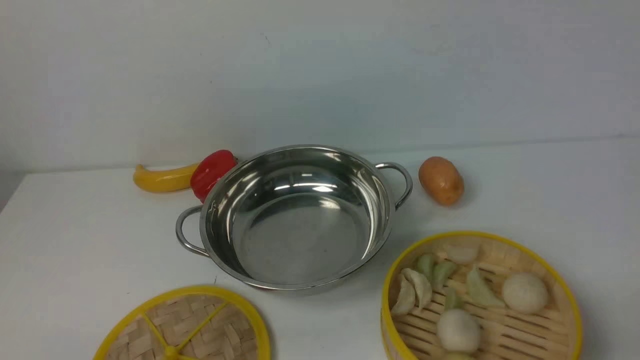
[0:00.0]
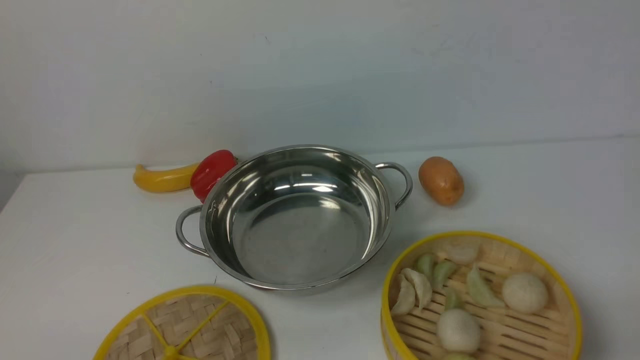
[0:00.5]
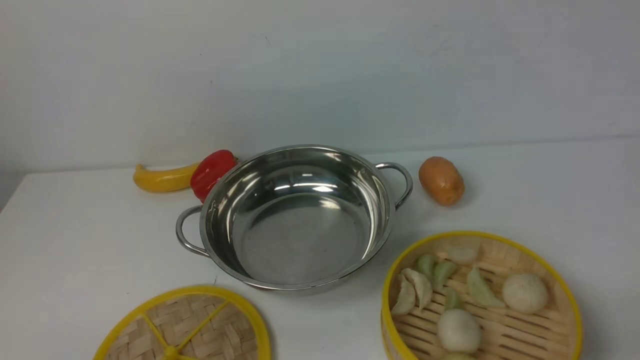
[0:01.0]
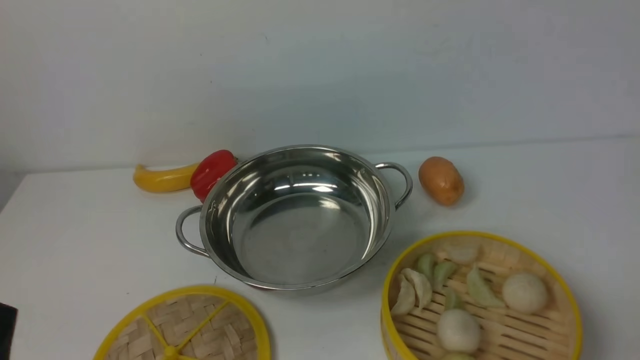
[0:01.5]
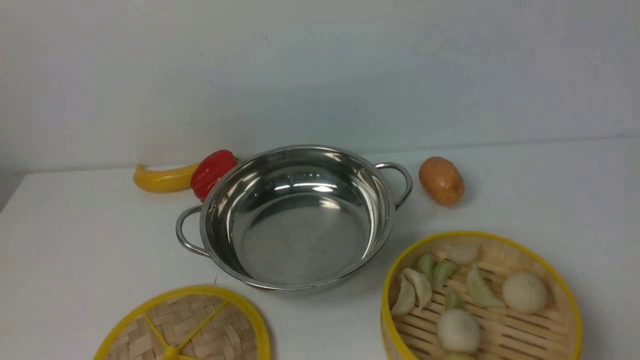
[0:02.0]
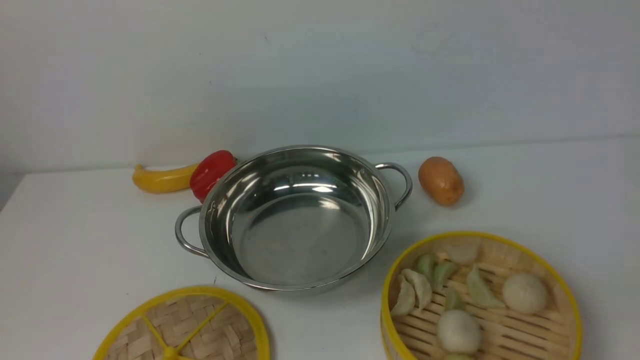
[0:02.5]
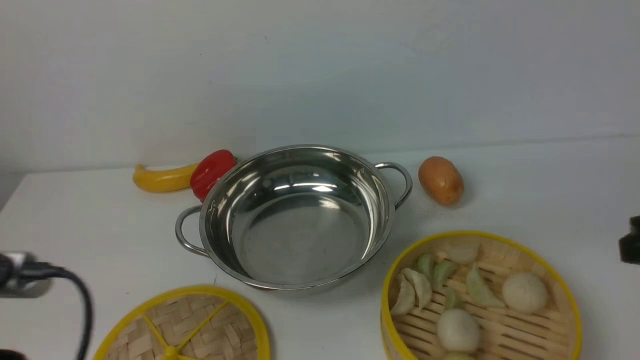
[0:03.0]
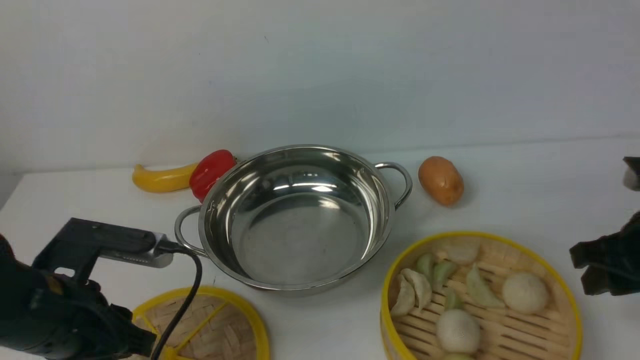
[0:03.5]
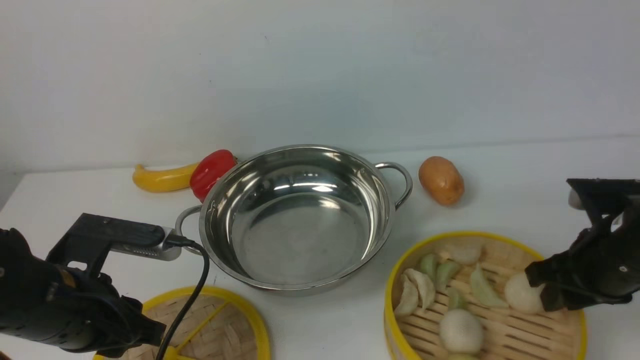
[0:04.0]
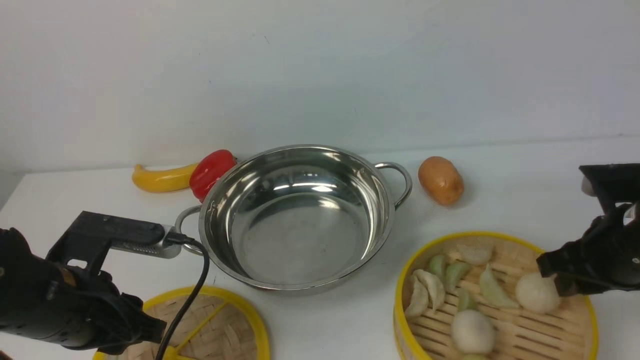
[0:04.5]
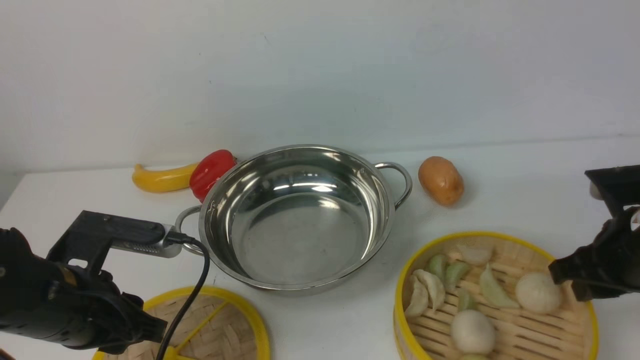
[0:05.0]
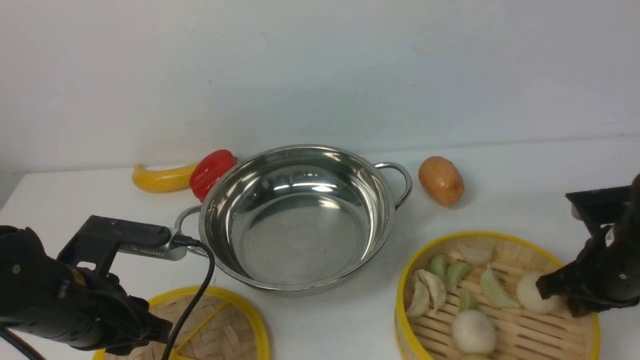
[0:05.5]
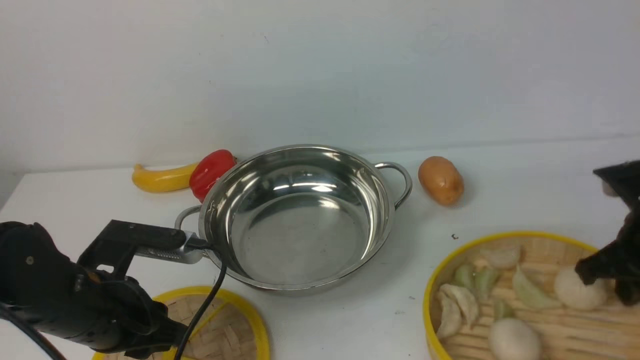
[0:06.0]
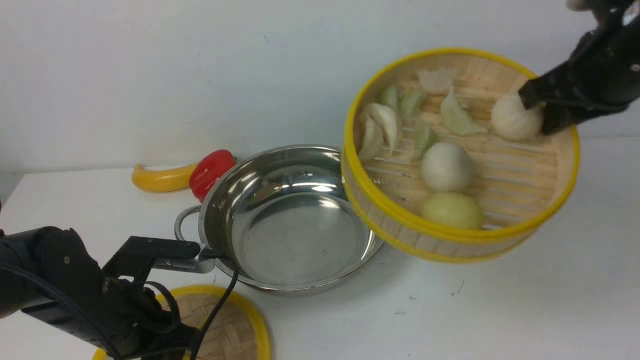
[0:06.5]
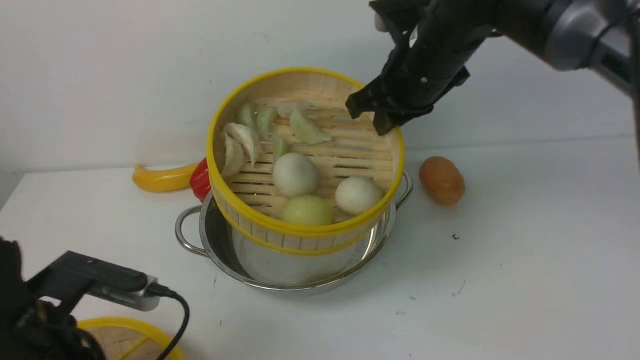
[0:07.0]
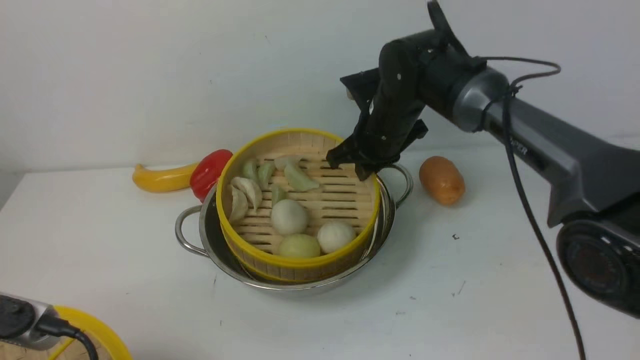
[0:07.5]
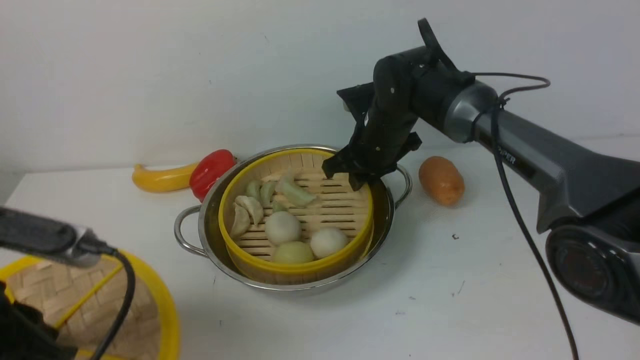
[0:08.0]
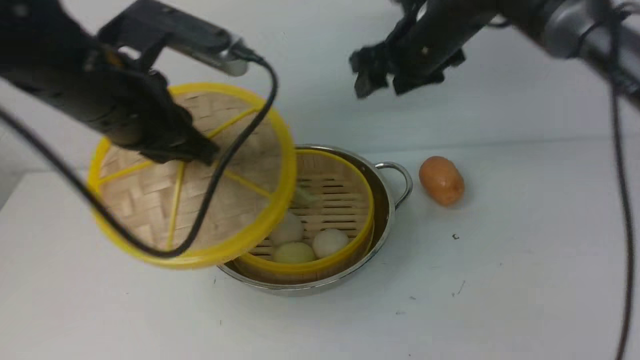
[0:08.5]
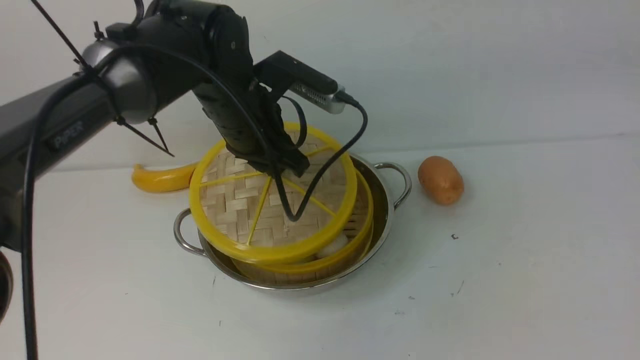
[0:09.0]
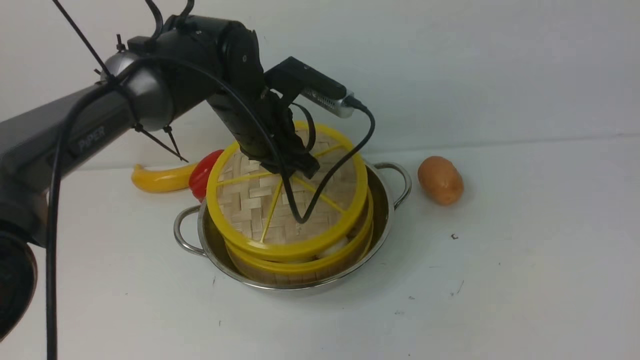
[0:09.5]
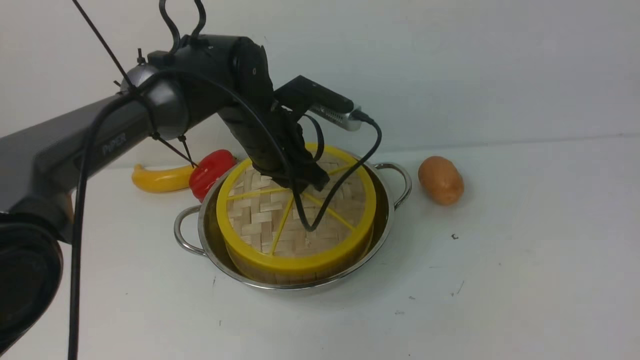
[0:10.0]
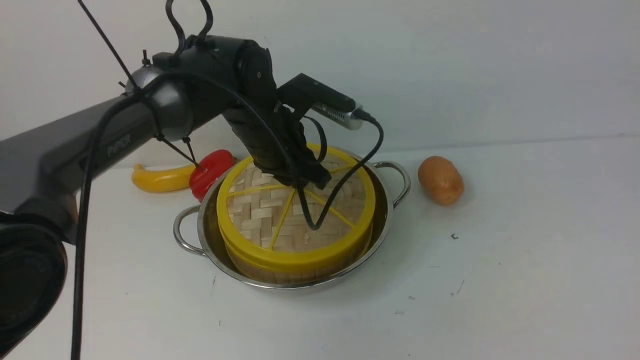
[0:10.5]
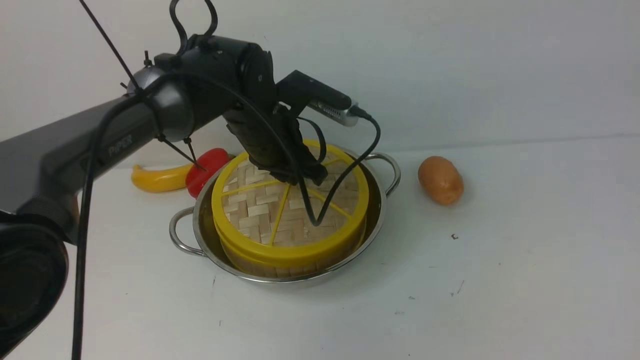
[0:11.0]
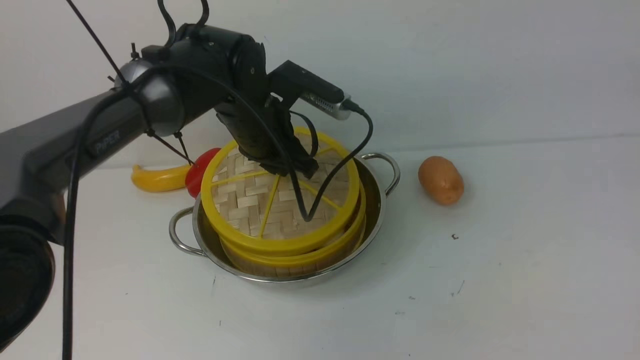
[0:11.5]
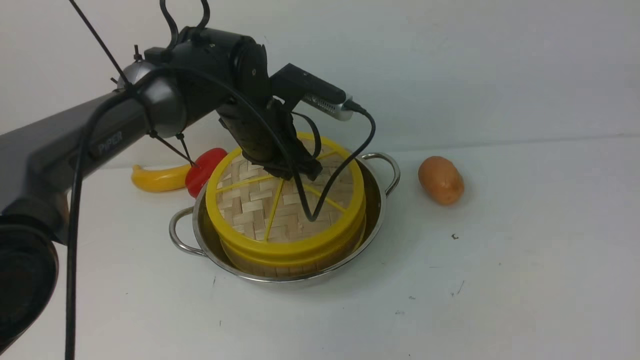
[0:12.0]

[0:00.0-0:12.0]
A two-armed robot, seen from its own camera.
Task of the whole recording: place the steamer in the pot on the white table, and put the lid on the steamer.
Step, 0:00.0 to 0:06.0: use the right arm to lift the steamer closest to it.
Step, 0:06.5 to 0:08.0: use the right arm to put the steamer into the iron steamer pot in the middle.
0:02.0 to 0:04.0: The two grippers go roughly 20 cm forward.
0:04.0 to 0:06.0: The right gripper closes up.
0:06.0 to 0:08.0: The left gripper heads upward and backward, covering about 15 cm, and closes up. The right gripper travels to the left and forward by approximately 30 cm.
0:08.0 to 0:10.0: The left gripper shifts approximately 30 cm forward and to the right. Meanwhile the right gripper is displaced upward, backward and to the right by roughly 50 cm, and opens.
0:10.0 to 0:12.0: The grippers make only small movements.

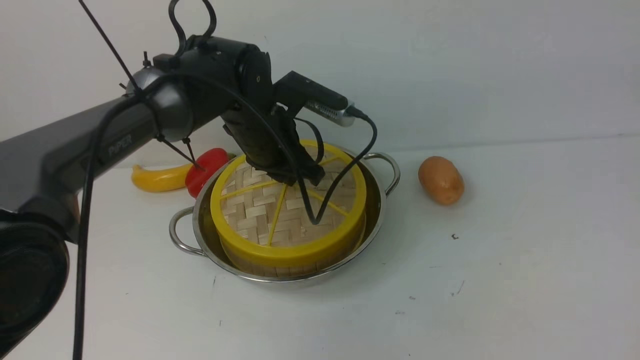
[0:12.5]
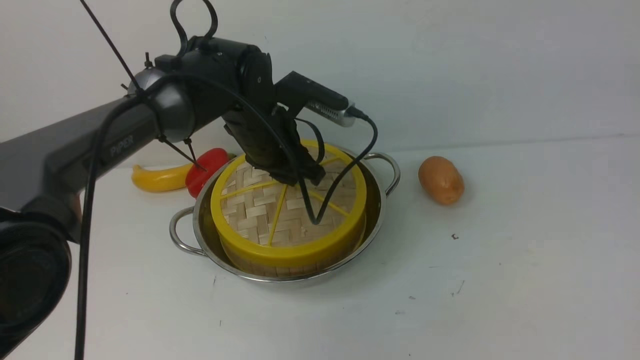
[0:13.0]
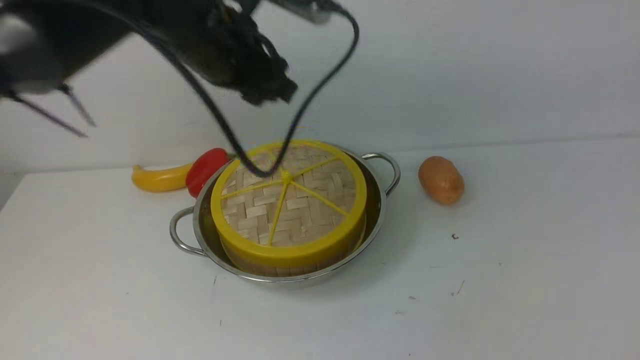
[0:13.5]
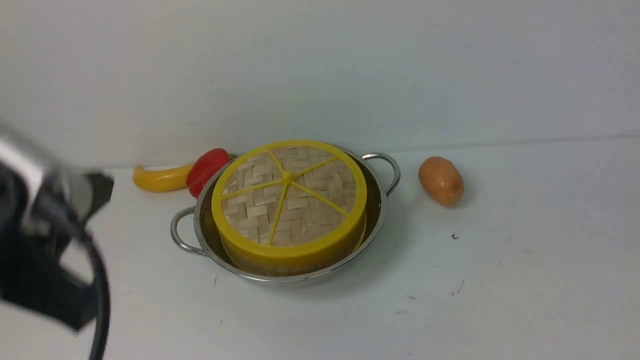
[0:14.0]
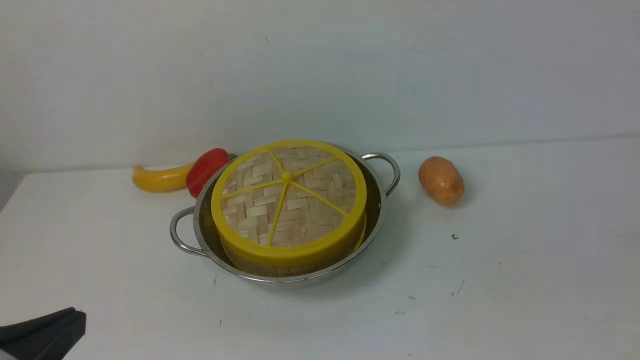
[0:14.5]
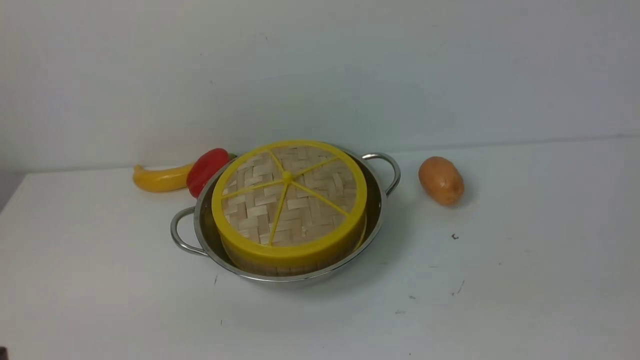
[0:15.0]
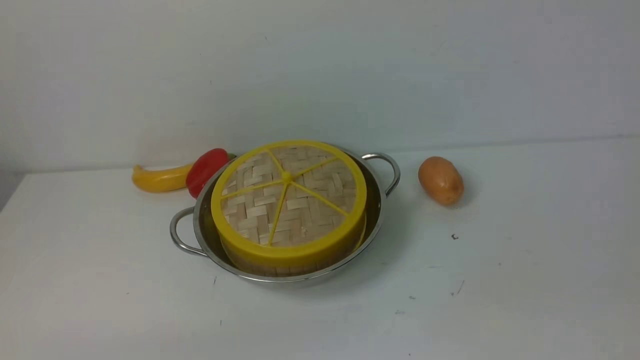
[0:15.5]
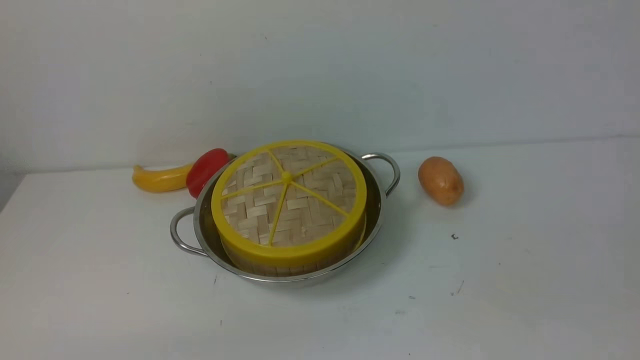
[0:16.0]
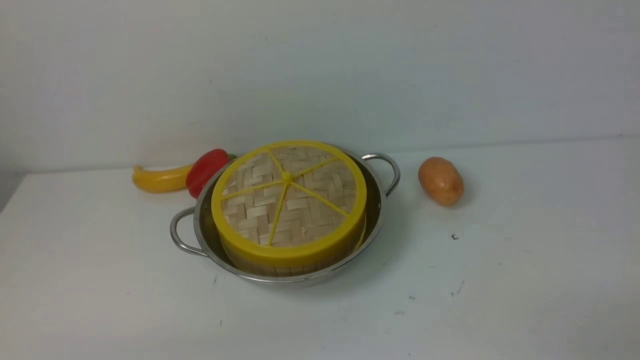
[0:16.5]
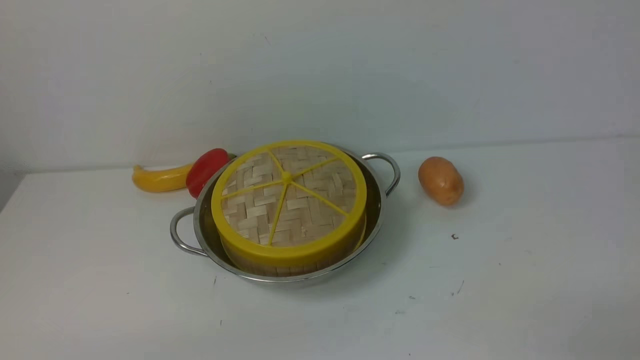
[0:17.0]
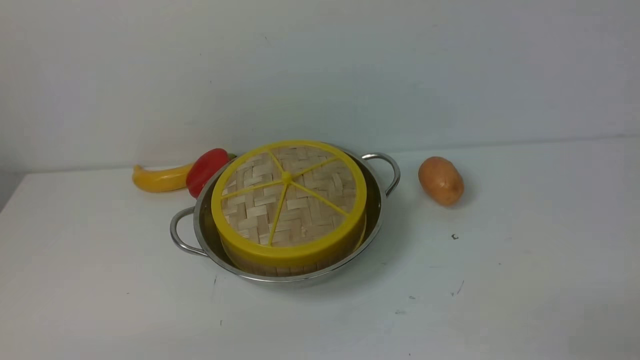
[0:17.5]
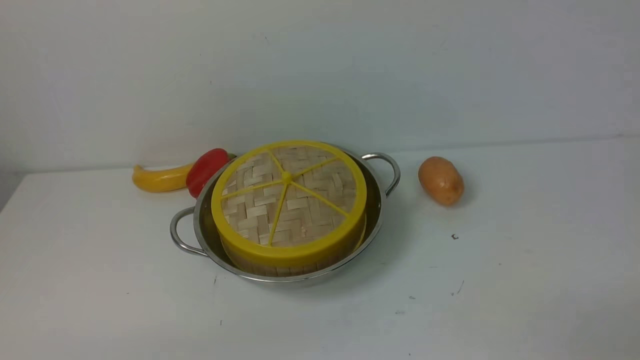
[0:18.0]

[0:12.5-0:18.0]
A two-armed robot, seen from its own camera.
Task of the whole recording: place the steamer in the pot on the white table, and put the lid on the steamer.
0:12.5 to 0:14.5: The right gripper is displaced downward and backward by roughly 20 cm, and closes up. The left gripper goes some 40 cm backward and to the left, and opens, then closes again.
0:14.5 to 0:16.0: The left gripper goes some 10 cm downward.
